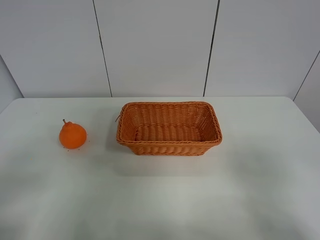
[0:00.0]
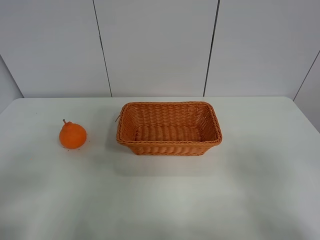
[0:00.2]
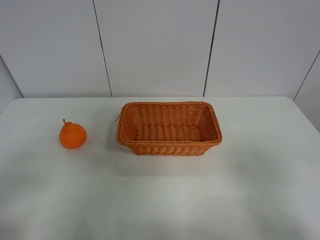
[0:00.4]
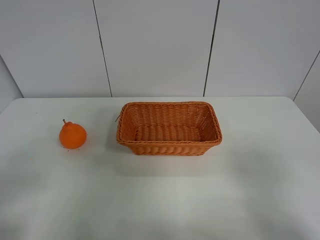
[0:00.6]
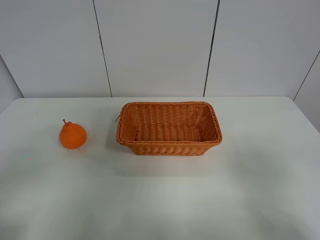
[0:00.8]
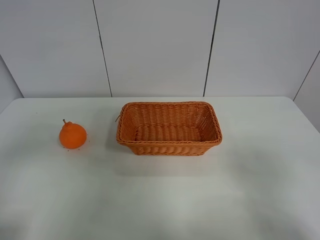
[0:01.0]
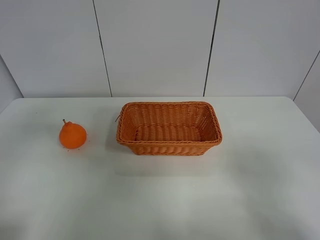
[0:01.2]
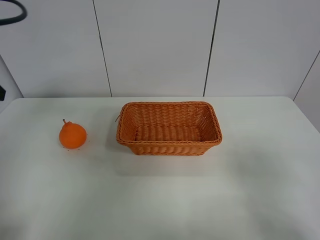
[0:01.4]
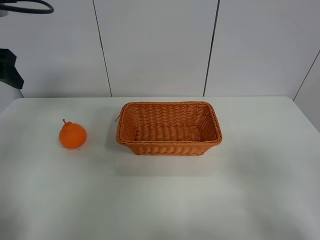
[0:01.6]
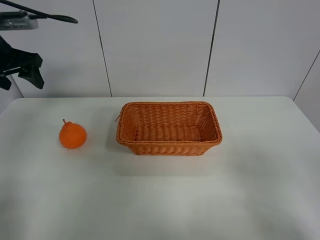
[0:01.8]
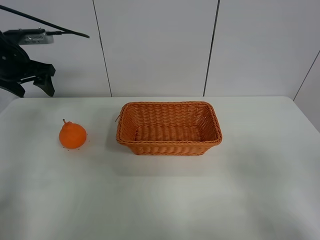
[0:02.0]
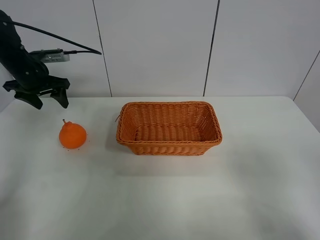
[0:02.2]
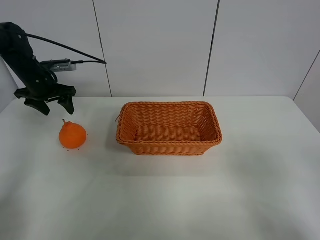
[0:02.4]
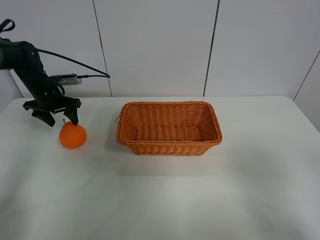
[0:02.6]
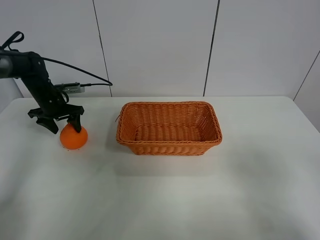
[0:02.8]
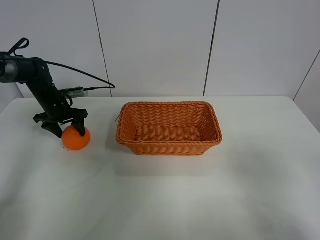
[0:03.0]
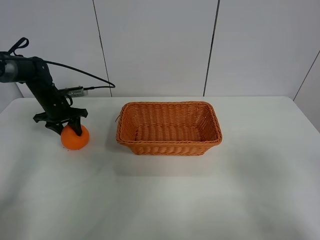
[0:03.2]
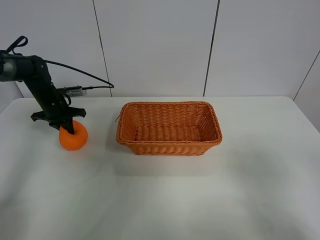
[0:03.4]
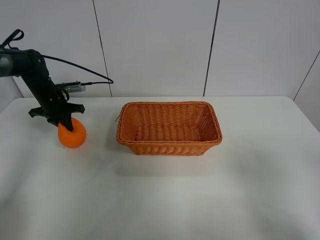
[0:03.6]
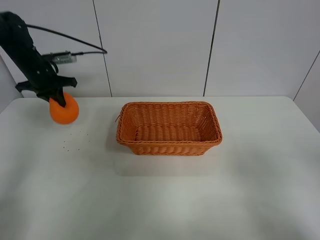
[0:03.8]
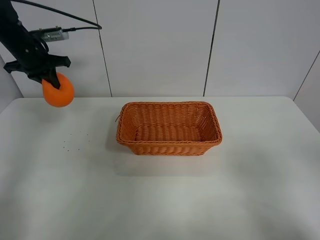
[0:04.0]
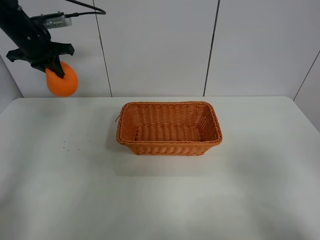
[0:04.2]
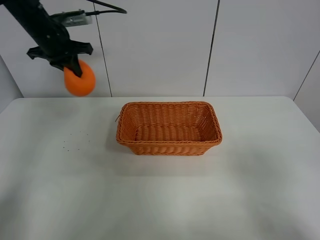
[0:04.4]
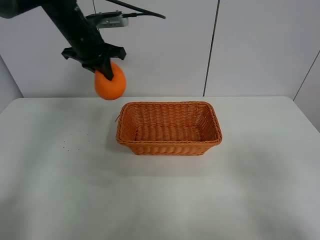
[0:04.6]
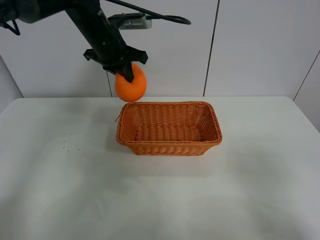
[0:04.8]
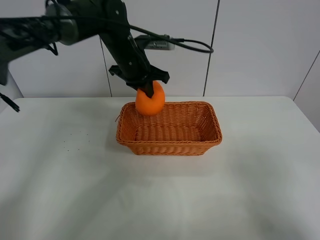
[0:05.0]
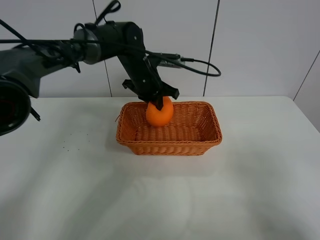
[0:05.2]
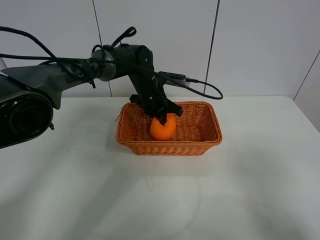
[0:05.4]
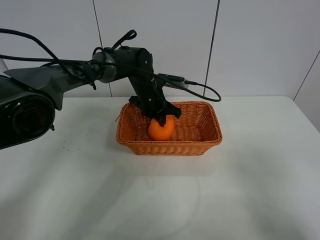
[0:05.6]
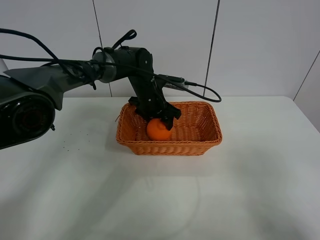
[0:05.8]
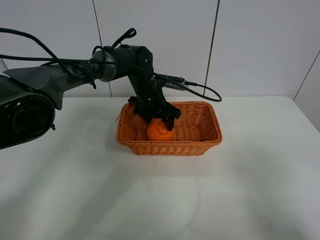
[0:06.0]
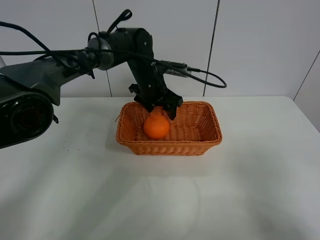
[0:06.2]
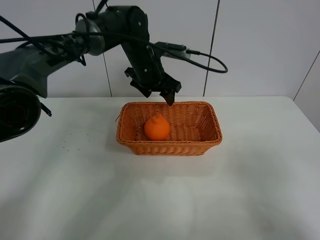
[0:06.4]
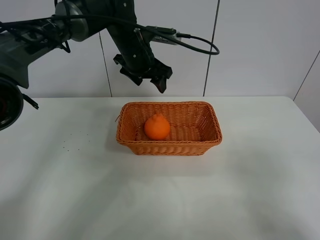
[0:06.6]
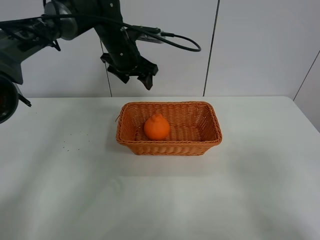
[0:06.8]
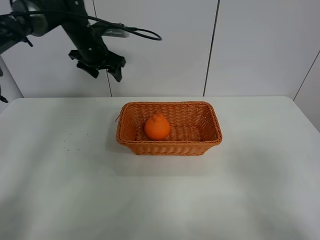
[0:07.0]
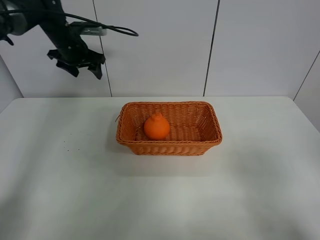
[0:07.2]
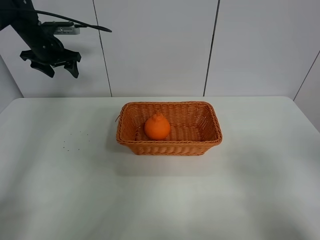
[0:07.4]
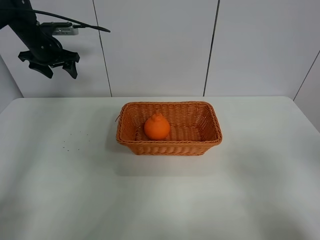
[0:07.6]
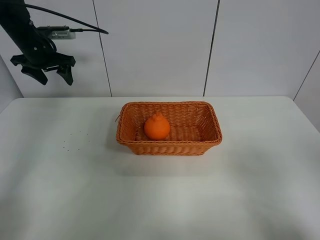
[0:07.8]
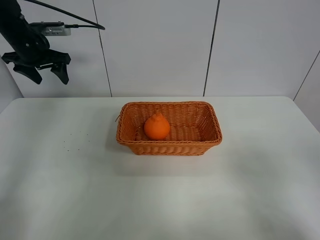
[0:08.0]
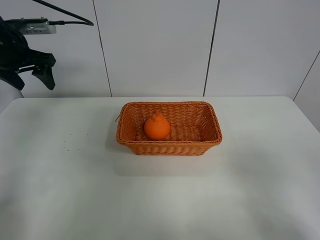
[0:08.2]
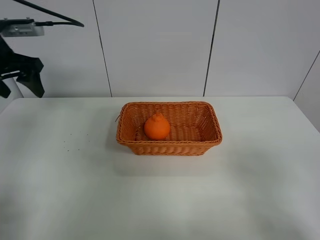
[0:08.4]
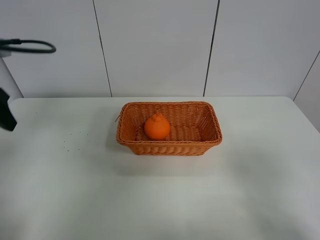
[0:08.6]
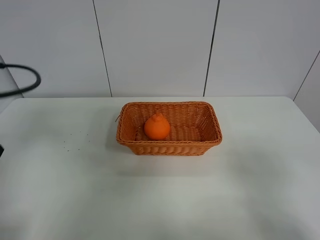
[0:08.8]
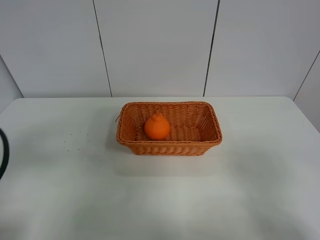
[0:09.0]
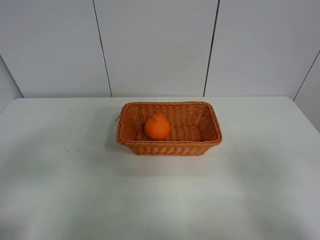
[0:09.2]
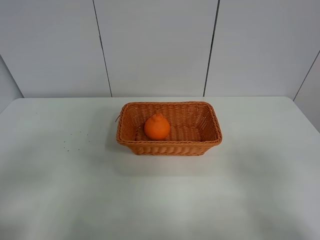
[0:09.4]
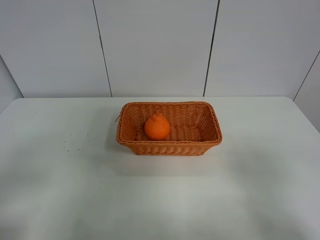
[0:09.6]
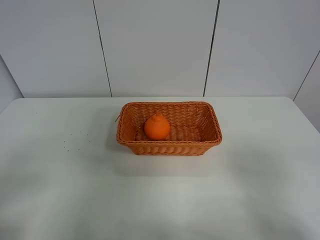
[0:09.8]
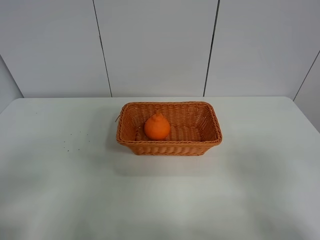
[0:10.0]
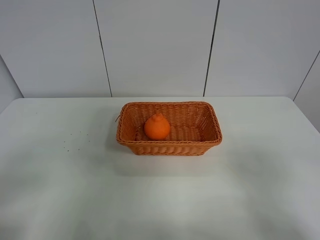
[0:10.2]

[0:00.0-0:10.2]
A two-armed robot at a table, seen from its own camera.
Task of the whole recording: left gripper grabs oranges and puts them in the basket.
Step, 0:00.0 to 0:03.4: Grasp the orange with left gripper.
Step, 0:03.6 to 0:07.0: Place the orange in the basket with left gripper.
0:00.0 to 0:01.4: The left gripper travels forward by about 25 cm.
0:01.4 to 0:03.0: The left gripper travels downward and forward by approximately 35 cm.
0:03.0 to 0:04.4: The left gripper goes some 20 cm upward, and closes up.
0:04.4 to 0:05.8: The left gripper shifts some 25 cm to the right and downward, and opens its fingers.
0:05.8 to 0:07.2: The left gripper shifts approximately 25 cm to the left and upward.
0:07.2 to 0:08.8: The left gripper travels backward by approximately 35 cm.
0:08.8 to 0:10.2: The left gripper shifts roughly 15 cm backward.

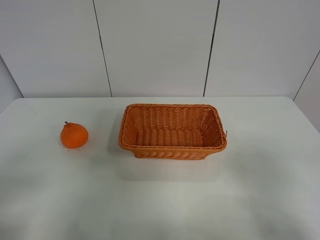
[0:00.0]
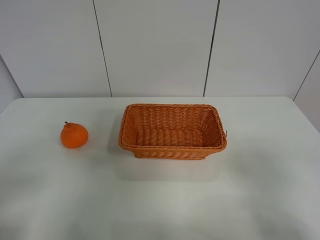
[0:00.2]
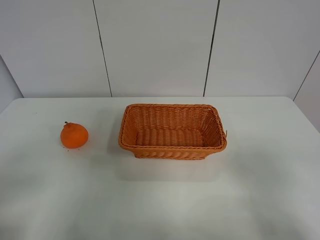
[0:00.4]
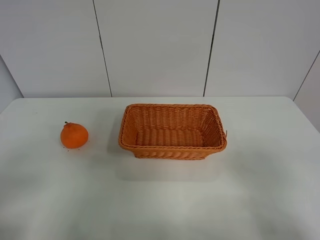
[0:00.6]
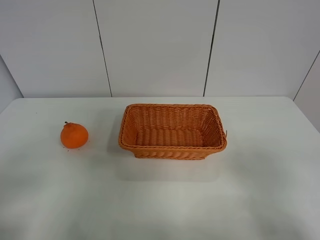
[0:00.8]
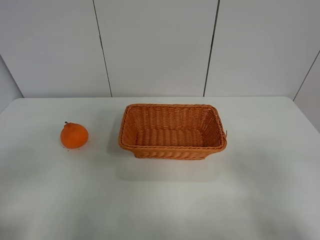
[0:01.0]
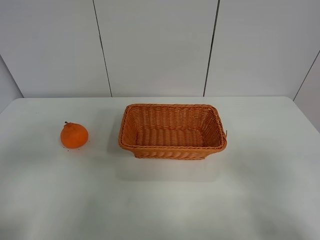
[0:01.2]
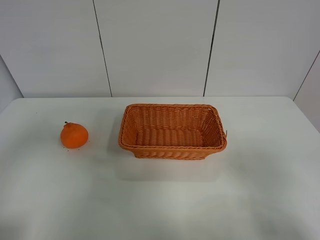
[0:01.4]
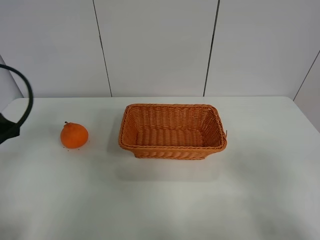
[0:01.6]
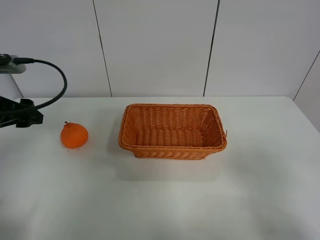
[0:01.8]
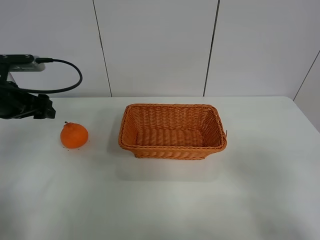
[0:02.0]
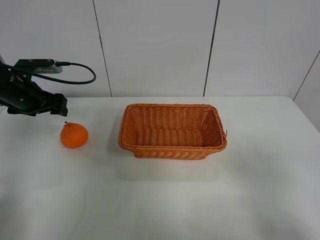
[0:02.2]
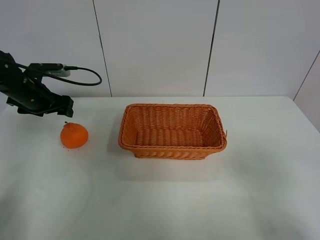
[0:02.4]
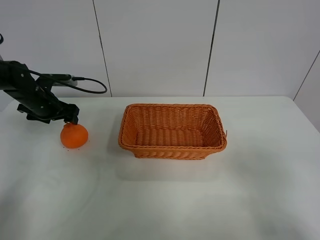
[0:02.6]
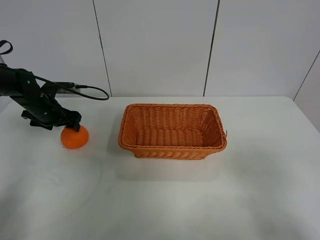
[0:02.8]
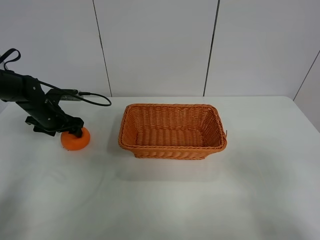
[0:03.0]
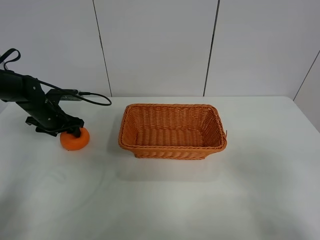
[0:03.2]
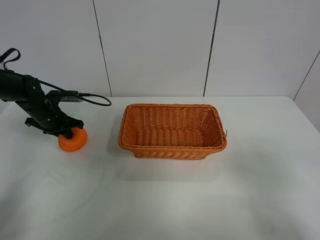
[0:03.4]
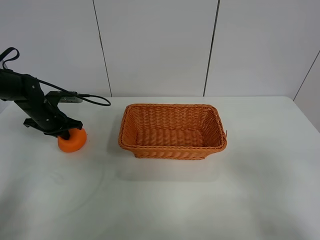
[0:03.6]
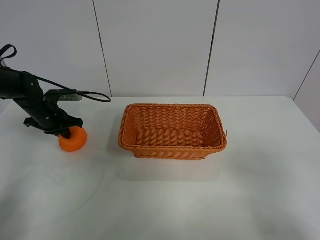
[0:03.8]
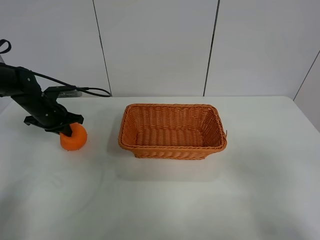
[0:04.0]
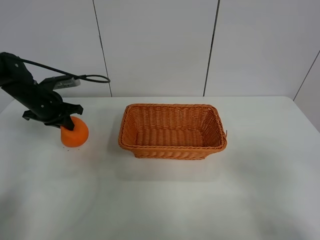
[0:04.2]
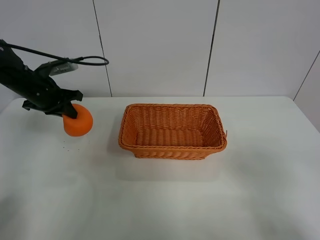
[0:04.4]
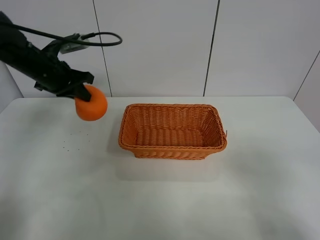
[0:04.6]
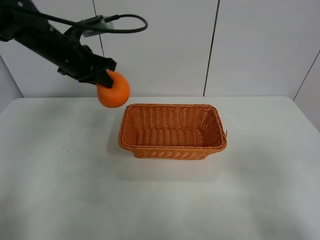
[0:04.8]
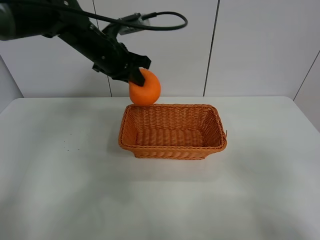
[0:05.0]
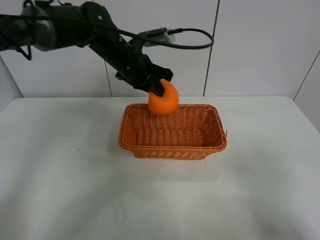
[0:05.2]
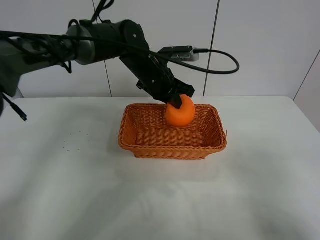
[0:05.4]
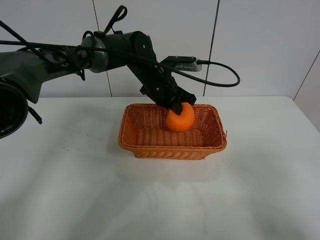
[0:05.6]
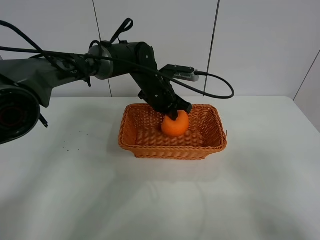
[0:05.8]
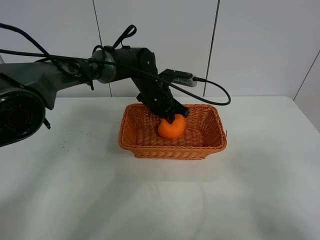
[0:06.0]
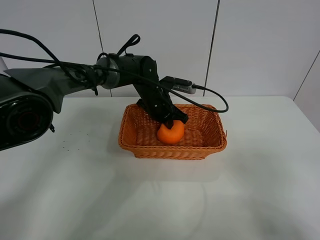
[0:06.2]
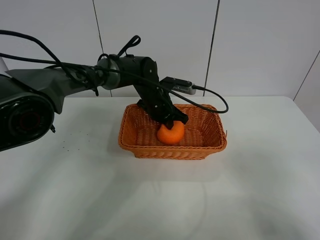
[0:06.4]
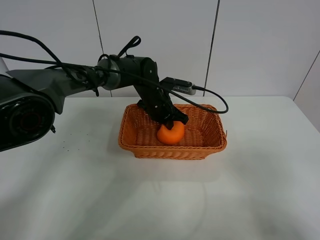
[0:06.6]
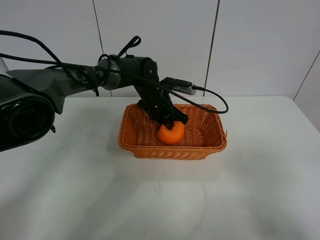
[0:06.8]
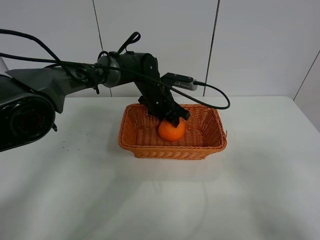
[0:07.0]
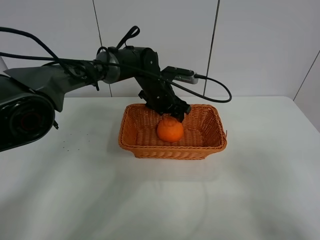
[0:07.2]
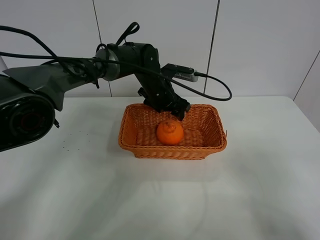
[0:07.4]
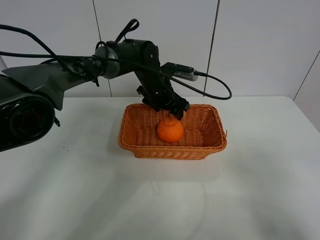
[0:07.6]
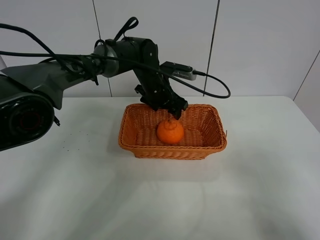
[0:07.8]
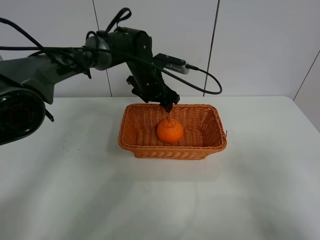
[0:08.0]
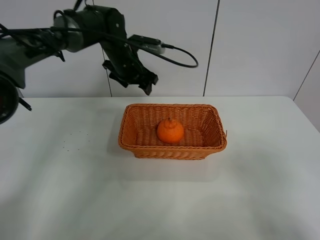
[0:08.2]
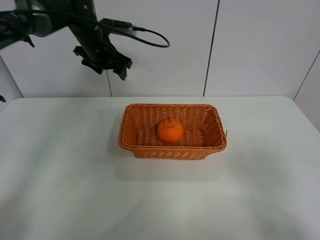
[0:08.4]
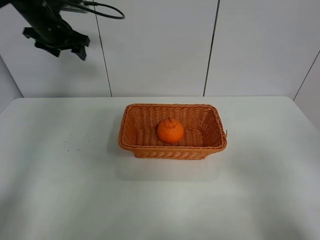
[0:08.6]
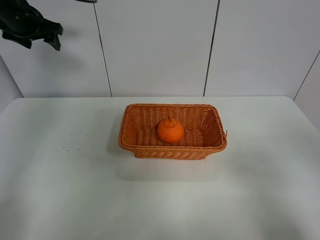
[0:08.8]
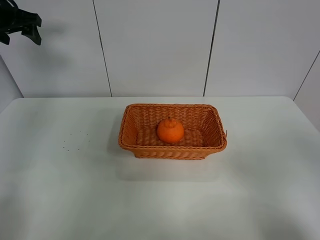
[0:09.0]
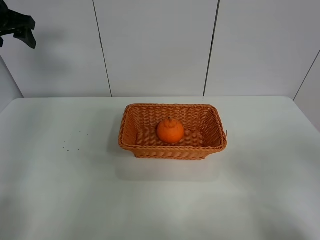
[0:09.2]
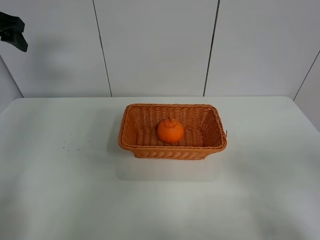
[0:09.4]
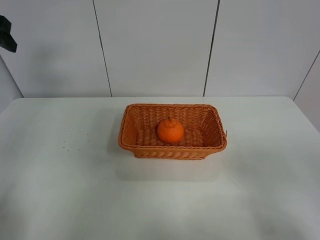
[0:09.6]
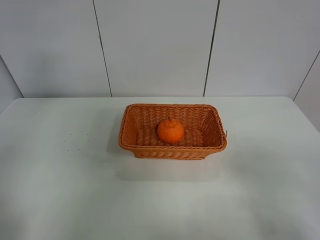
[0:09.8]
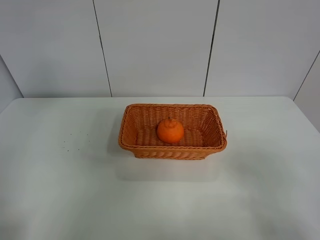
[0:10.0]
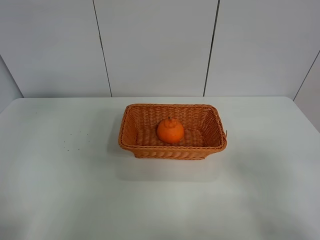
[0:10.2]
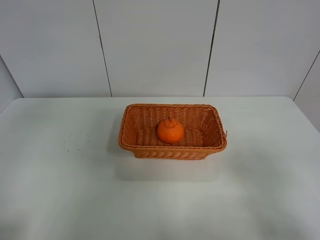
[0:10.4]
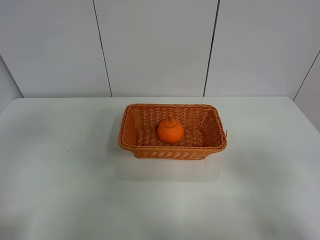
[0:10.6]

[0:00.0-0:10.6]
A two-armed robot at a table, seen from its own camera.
Task of the whole recording: left gripper grabs oranges and puts them in the basket.
Step, 0:00.0 to 0:03.8: Grasp the orange with left gripper.
Step, 0:04.0 to 0:08.4: Place the orange in the basket with left gripper.
0:00.0 to 0:01.6: The left gripper travels forward by roughly 20 cm.
0:01.6 to 0:03.0: The left gripper heads forward and downward, covering roughly 30 cm.
0:03.0 to 0:04.6: The left gripper goes roughly 15 cm upward and to the right, and closes its fingers.
0:04.6 to 0:06.0: The left gripper goes some 25 cm to the right and downward.
0:06.0 to 0:07.6: The left gripper opens its fingers.
0:07.6 to 0:09.0: The left gripper goes about 40 cm to the left and upward.
0:09.0 to 0:10.6: The left gripper travels backward by about 35 cm.

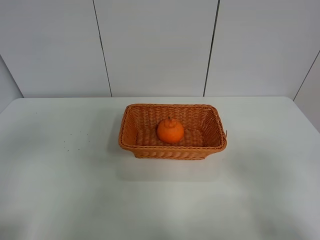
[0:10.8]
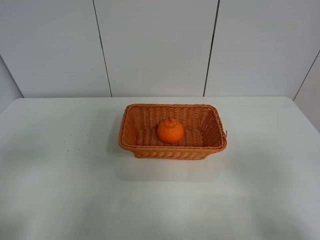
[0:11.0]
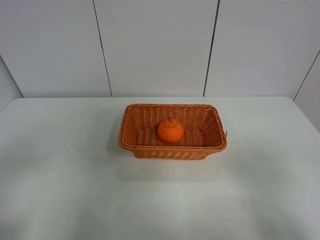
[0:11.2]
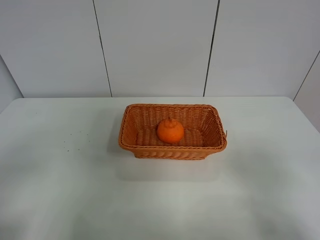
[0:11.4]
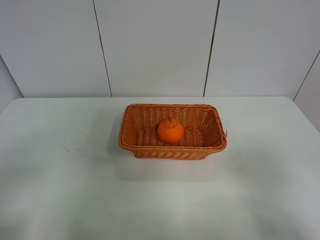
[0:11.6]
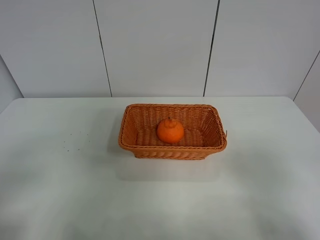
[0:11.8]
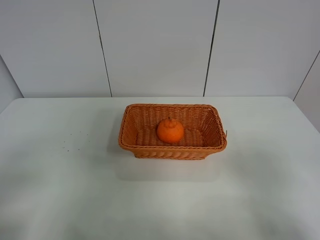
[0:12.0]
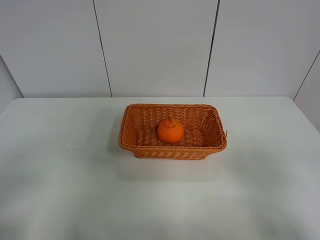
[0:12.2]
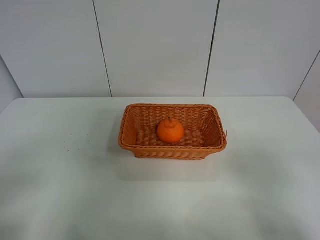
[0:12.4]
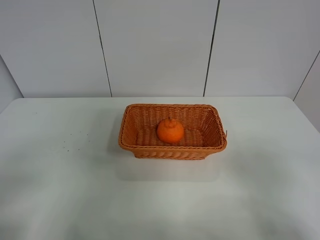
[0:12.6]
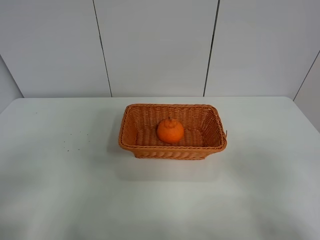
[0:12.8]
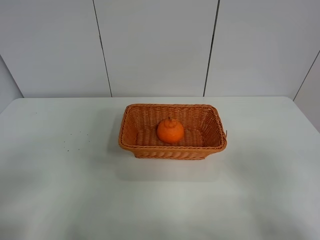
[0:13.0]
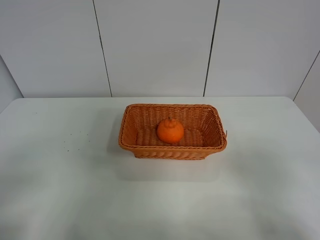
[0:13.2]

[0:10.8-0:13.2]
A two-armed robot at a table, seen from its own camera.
Task of the whole recording: left gripper grabs oranges and puts them in the basket.
0:12.0 to 0:13.2: The two grippers keep their place.
